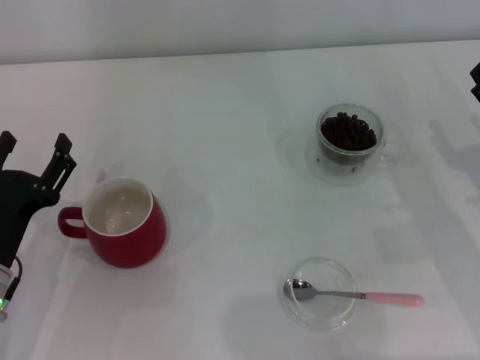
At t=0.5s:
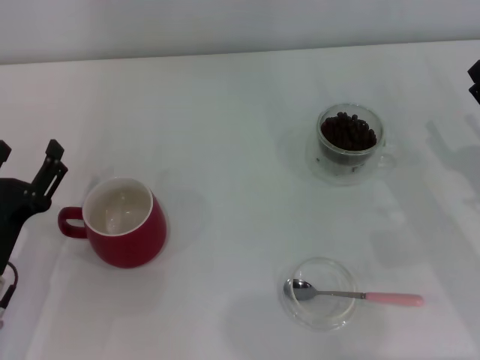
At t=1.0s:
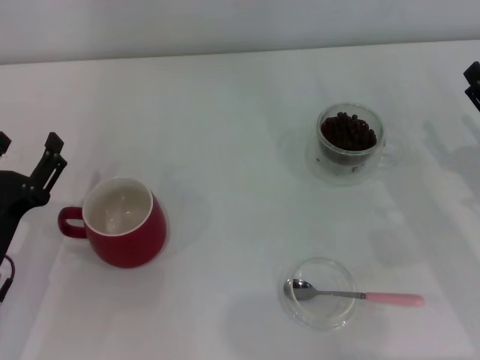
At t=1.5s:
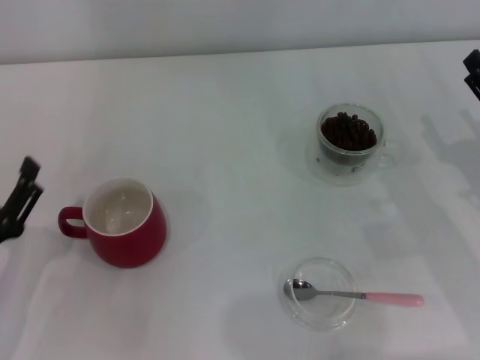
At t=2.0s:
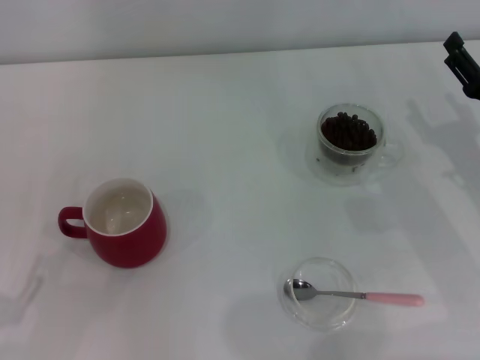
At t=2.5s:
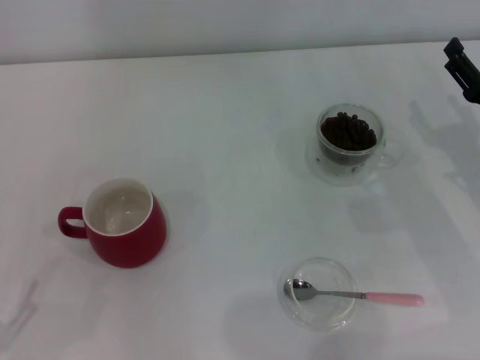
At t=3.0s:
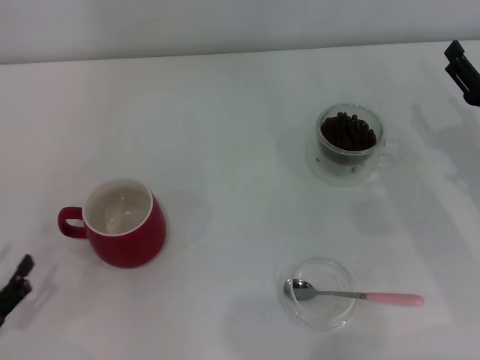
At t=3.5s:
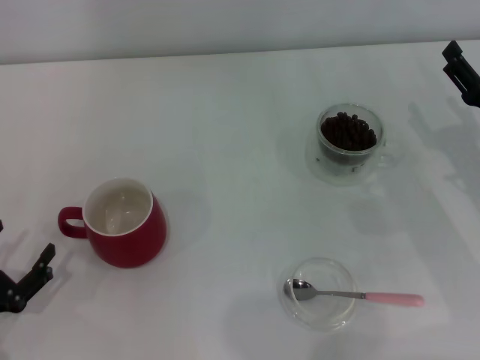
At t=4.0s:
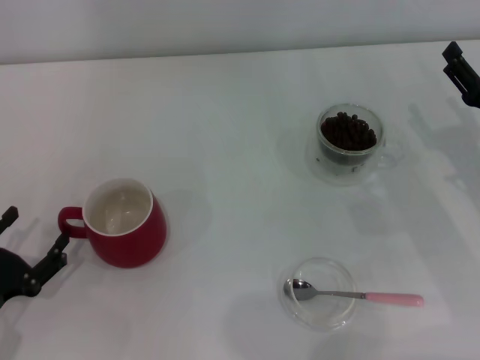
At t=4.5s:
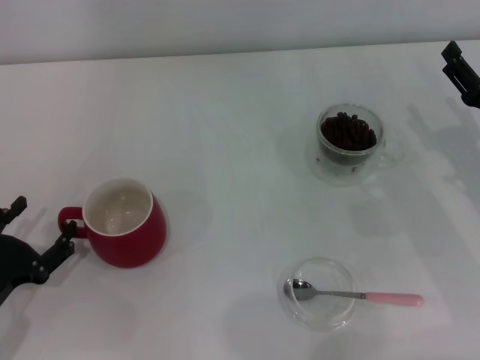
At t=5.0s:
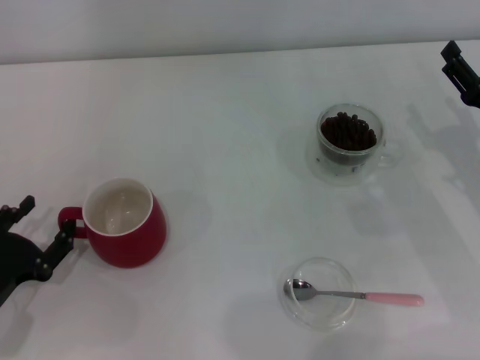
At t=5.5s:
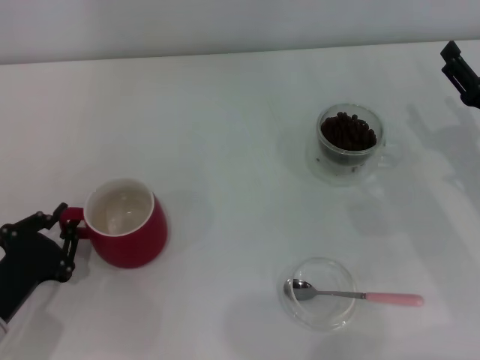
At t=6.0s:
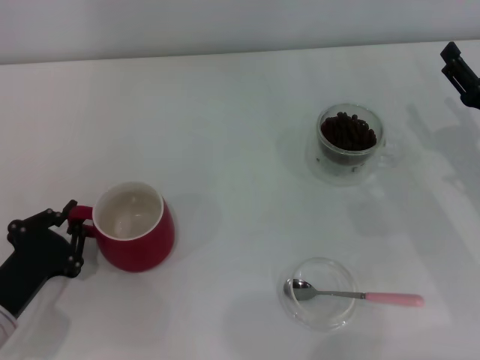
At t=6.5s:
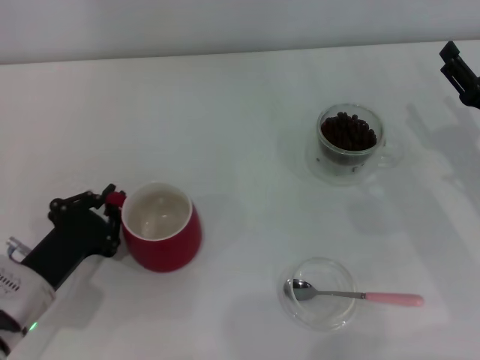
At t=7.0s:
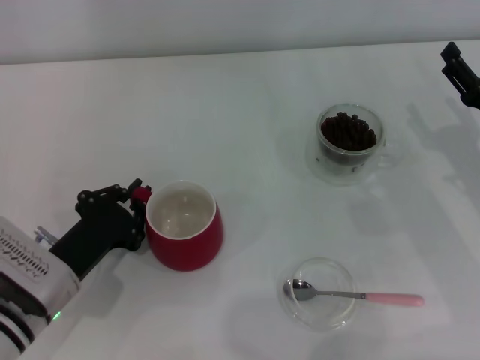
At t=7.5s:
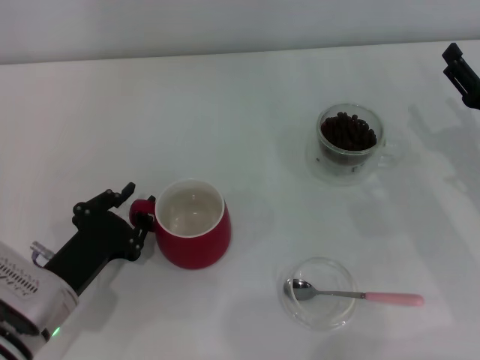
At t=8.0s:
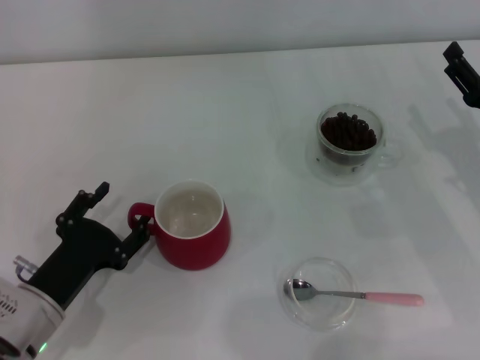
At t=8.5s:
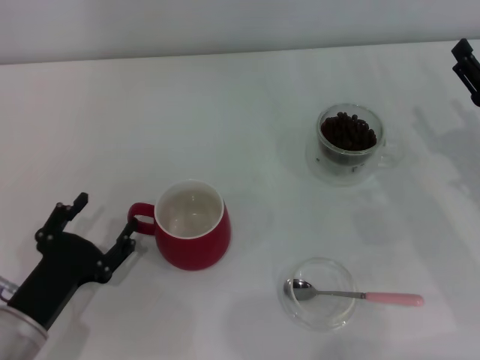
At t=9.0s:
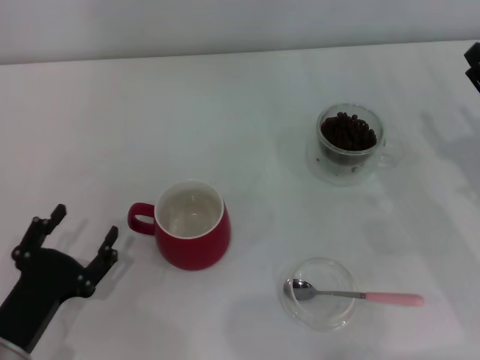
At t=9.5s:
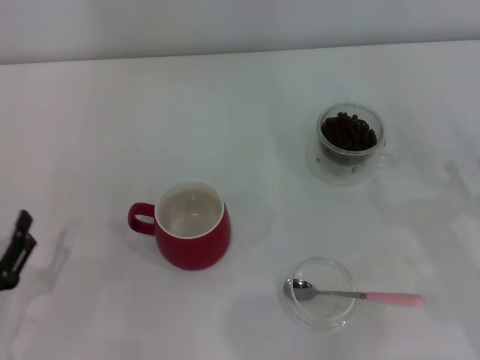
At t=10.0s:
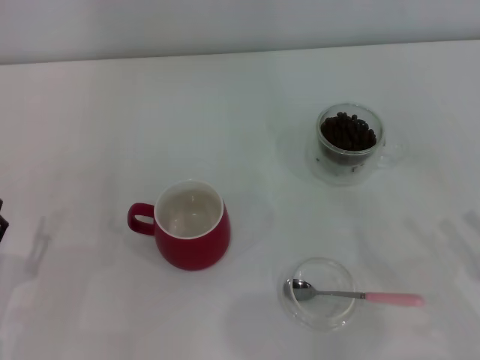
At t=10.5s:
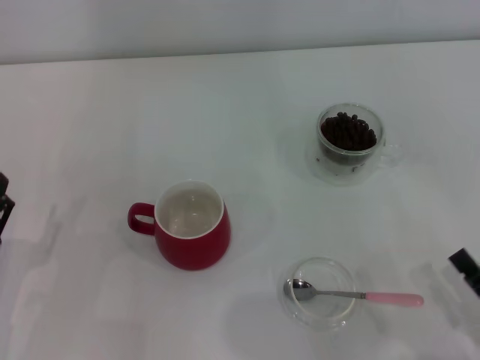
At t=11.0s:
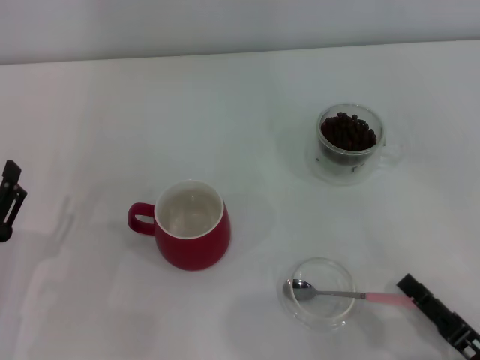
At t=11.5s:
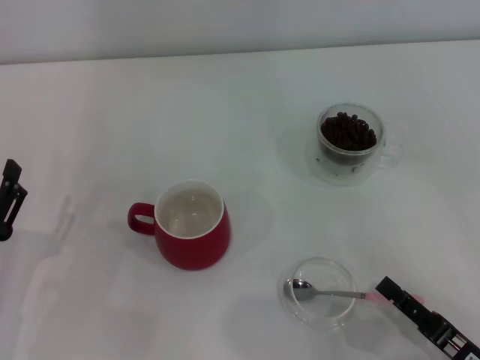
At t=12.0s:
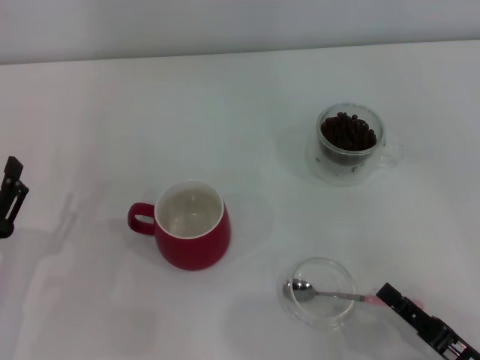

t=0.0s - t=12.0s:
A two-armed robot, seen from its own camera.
Task of the whole recording: Use a pink spoon to take out the coffee beans from the glass and pour them into the red cup.
Step, t=0.0s - t=8.5s: Move the cup to the center of view with the left gripper.
t=0.0s - t=2.0s: The left gripper moves backward and to the left, some 15 cm.
t=2.0s - t=4.0s: The left gripper goes some 5 cm forward.
t=4.0s - t=6.0s: The left gripper closes its fingers.
t=6.0s - t=8.0s: The left gripper opens.
t=8.0s - t=10.0s: The right gripper heads backward, covering approximately 15 cm. The left gripper shifts approximately 5 cm to the left.
t=10.0s - t=12.0s: The right gripper is displaced to the left by approximately 5 cm, and closes up.

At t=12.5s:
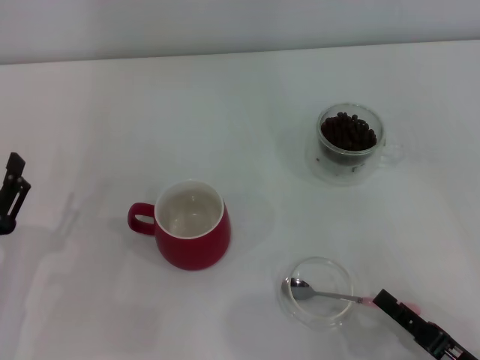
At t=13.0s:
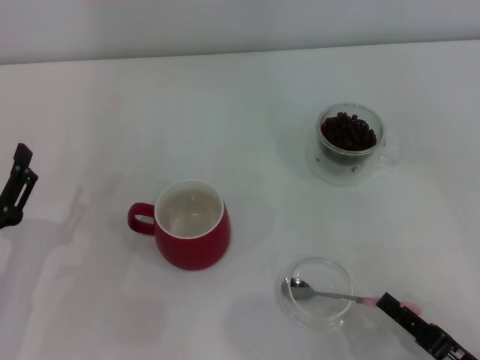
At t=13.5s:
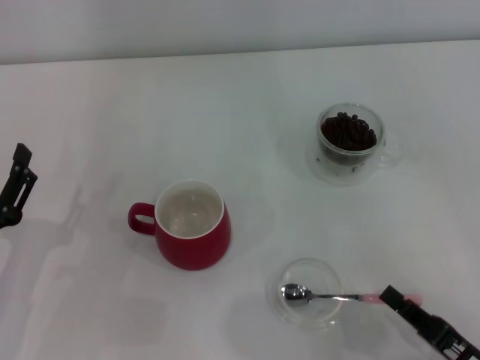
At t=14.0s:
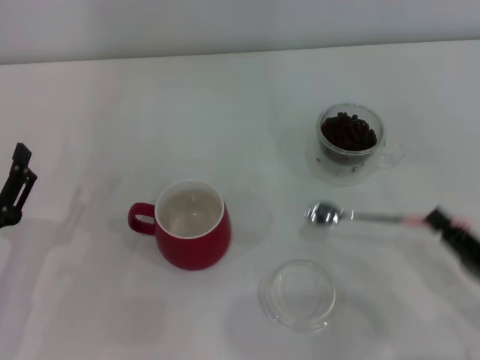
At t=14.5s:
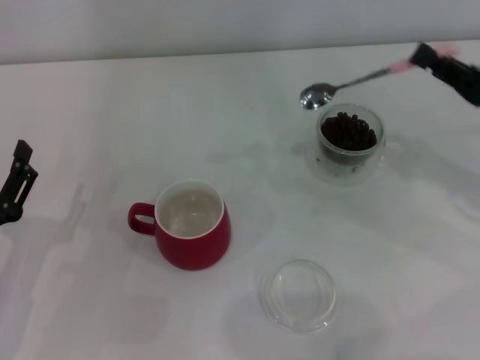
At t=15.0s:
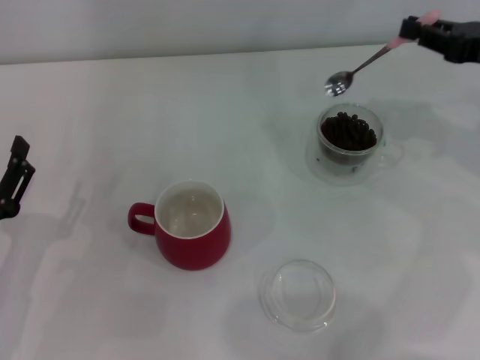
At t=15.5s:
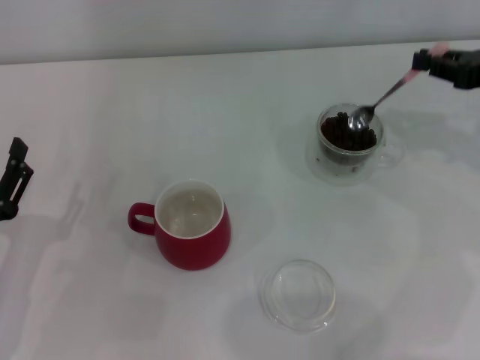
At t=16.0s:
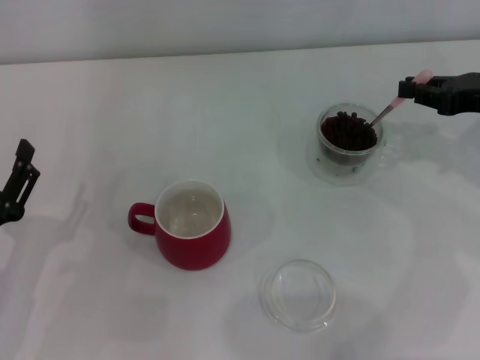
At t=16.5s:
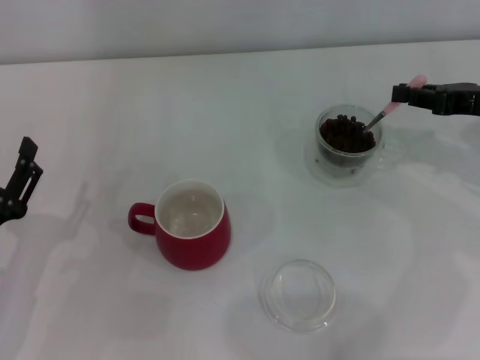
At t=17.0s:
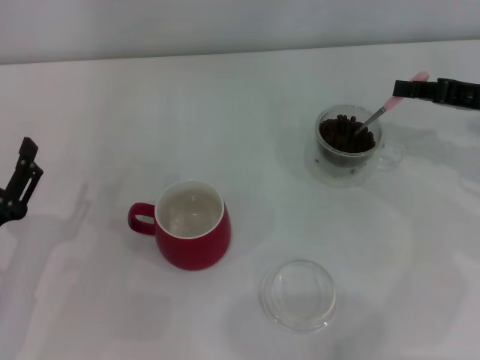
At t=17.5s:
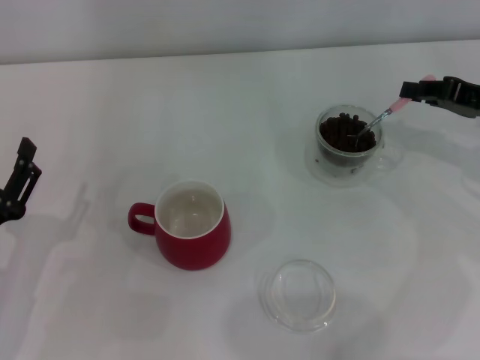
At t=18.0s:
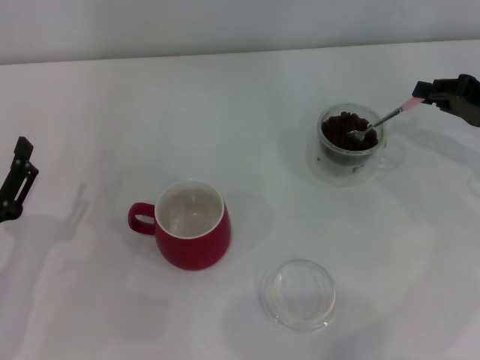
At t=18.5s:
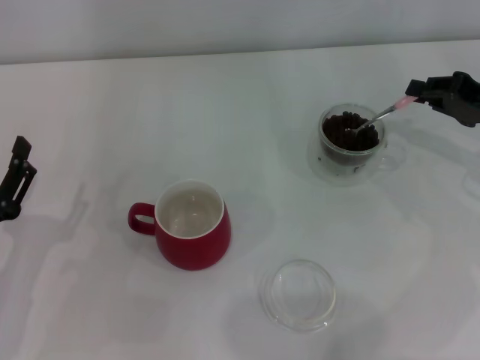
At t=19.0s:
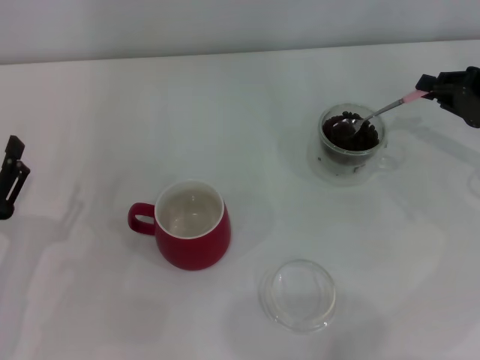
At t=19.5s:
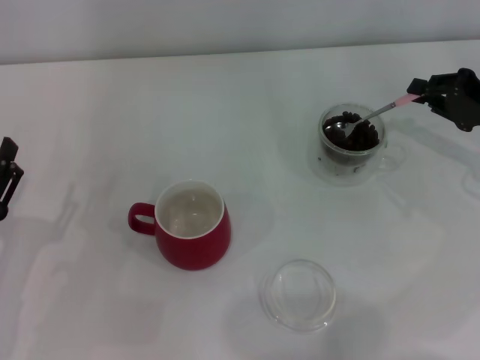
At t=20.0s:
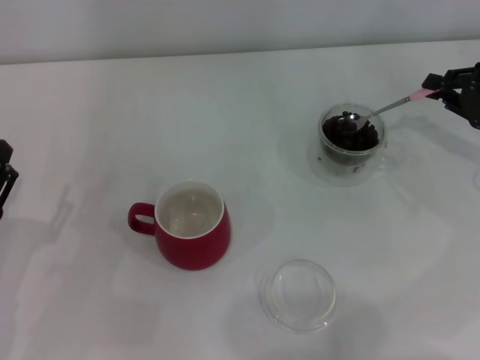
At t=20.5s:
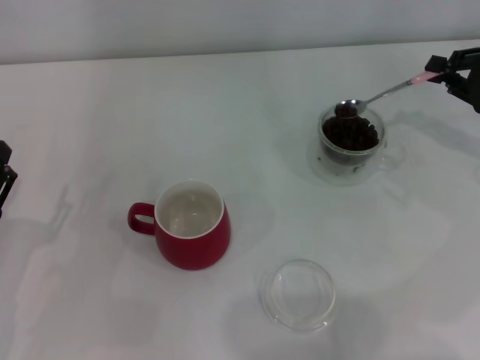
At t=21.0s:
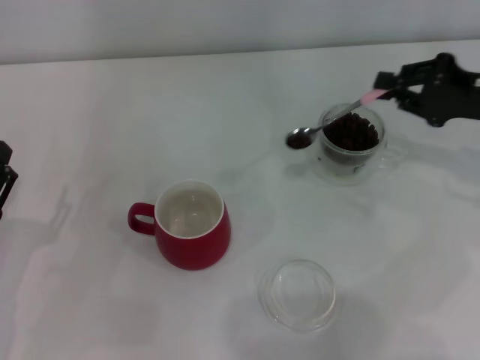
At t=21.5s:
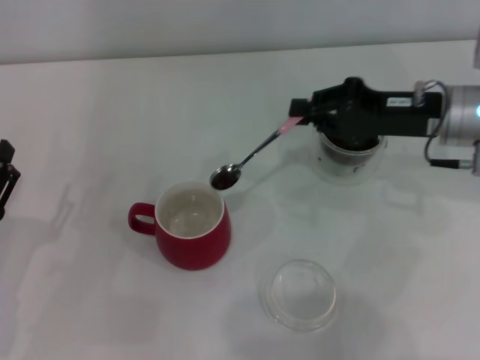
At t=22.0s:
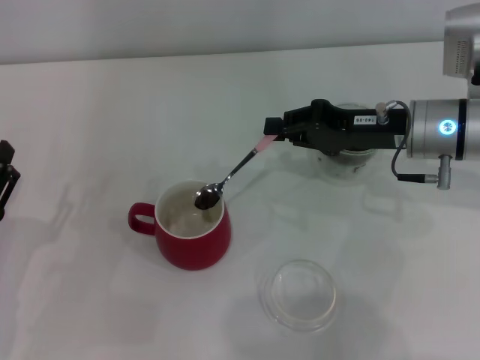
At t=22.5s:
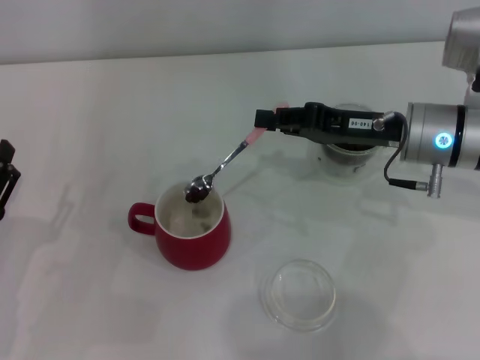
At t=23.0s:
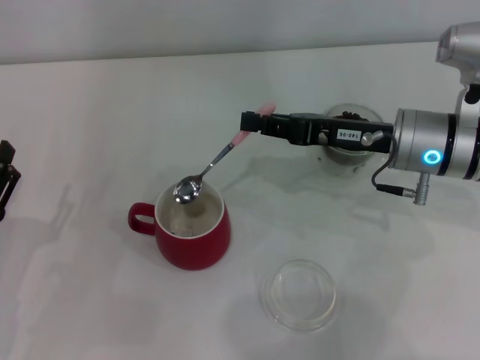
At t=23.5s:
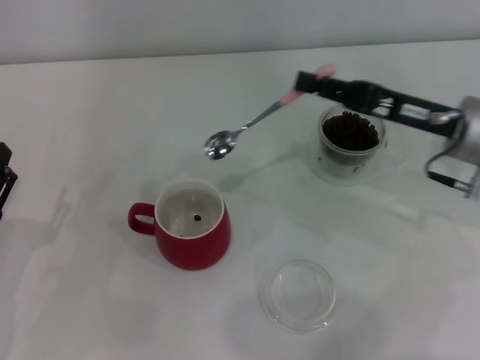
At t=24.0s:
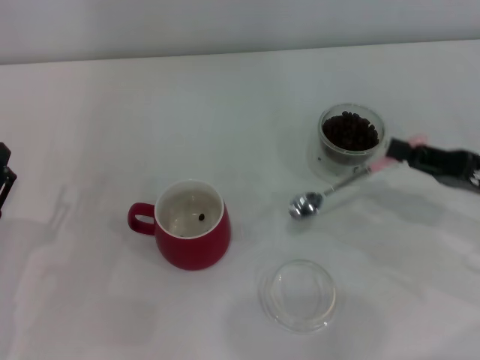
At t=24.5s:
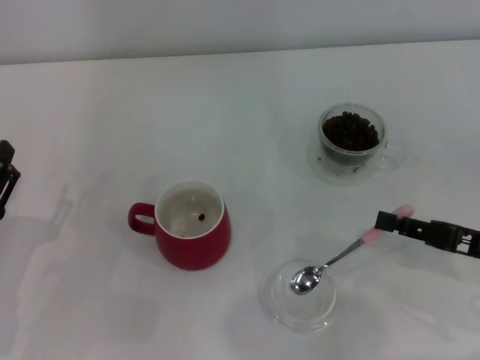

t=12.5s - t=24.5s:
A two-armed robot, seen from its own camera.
Task of the whole recording: Use a pink spoon to take out the coffee beans from the glass and pour them into the red cup.
Step, t=14.0s - t=23.0s: Scoop a spoonful of beans into the cup with the right gripper.
t=12.5s - t=14.5s: The right gripper travels forward and upward by some 25 cm.
t=18.5s - t=20.5s: The grippers make only small movements.
t=20.5s - t=22.5s: The right gripper shifts roughly 15 cm to the left.
t=22.5s - t=24.5s: The right gripper shifts roughly 15 cm backward and to the right.

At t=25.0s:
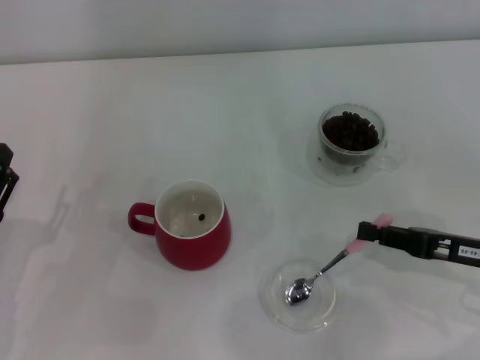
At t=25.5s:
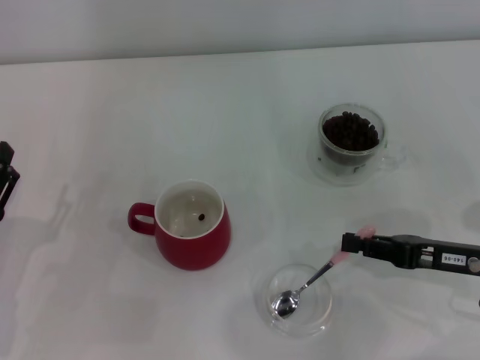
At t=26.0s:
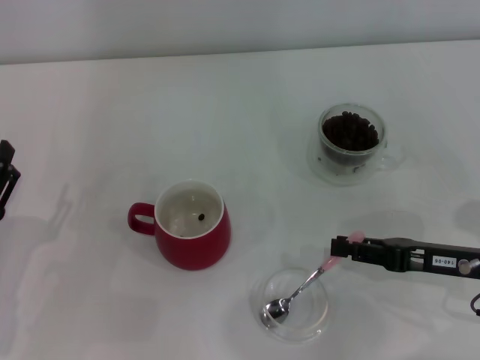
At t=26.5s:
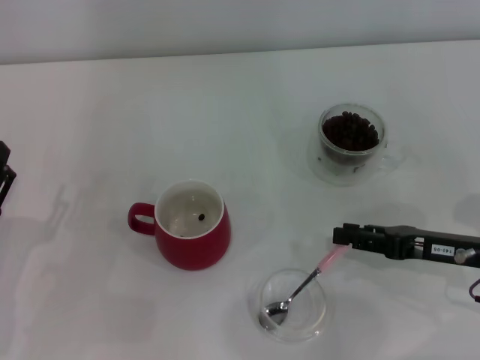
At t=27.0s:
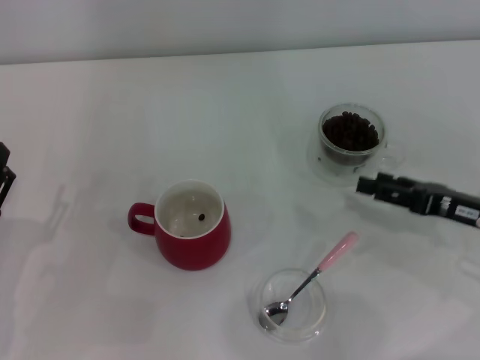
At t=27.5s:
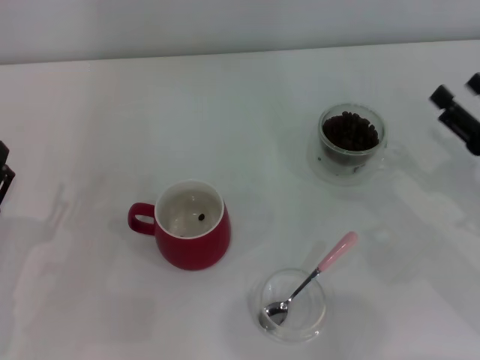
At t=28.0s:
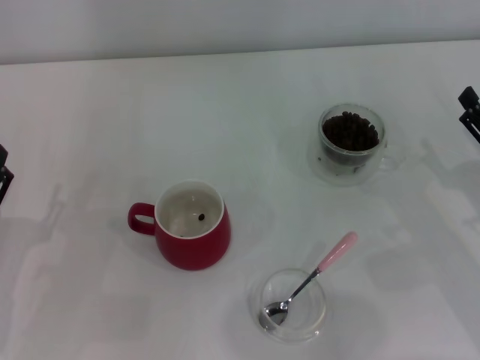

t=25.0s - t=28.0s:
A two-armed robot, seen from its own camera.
Task of the whole recording: Use a pink spoon to take out the coffee beans from the glass and pour them into the red cup.
t=25.0s - t=26.5s: There are only small adjustments of the grippers.
t=26.5s - t=28.0s: The right gripper opens up.
